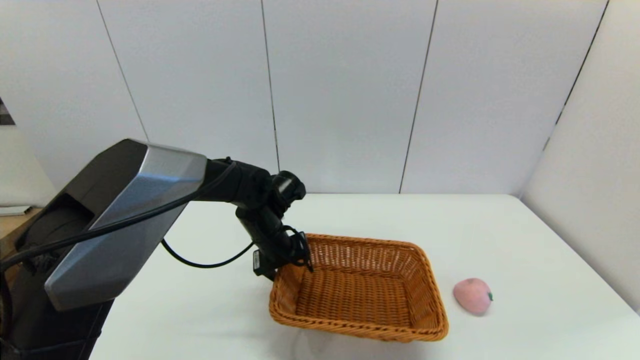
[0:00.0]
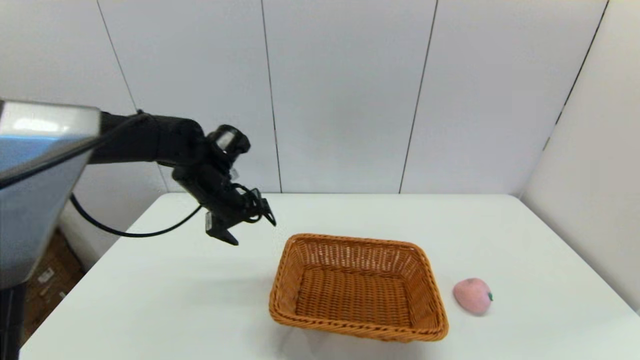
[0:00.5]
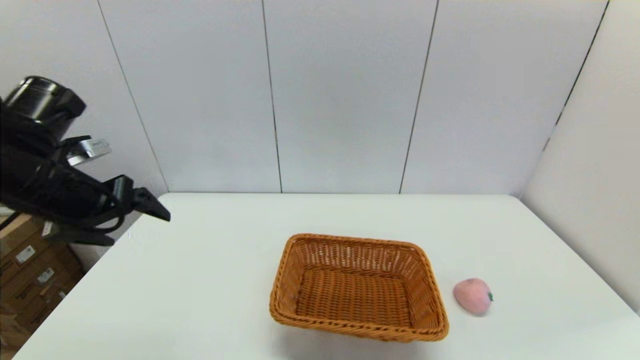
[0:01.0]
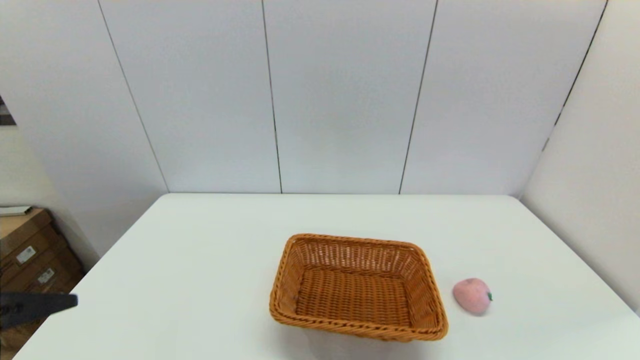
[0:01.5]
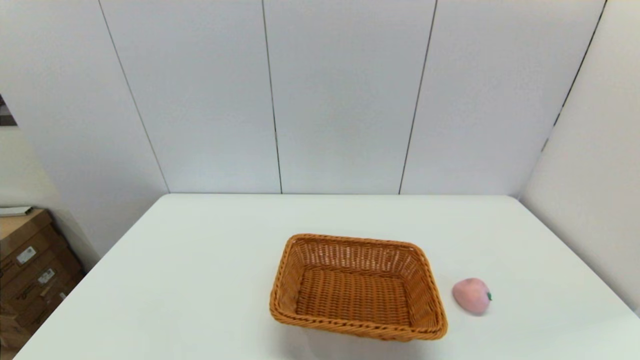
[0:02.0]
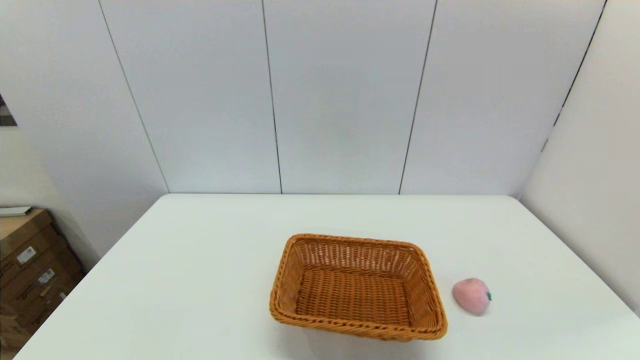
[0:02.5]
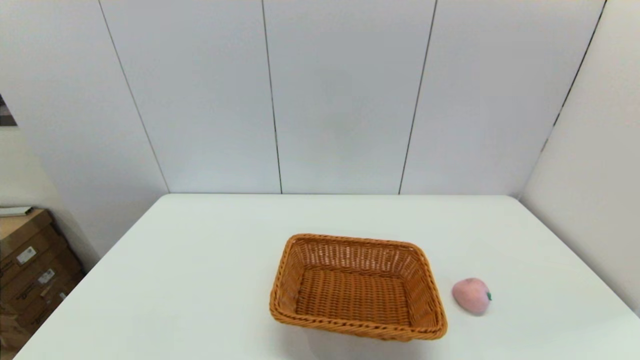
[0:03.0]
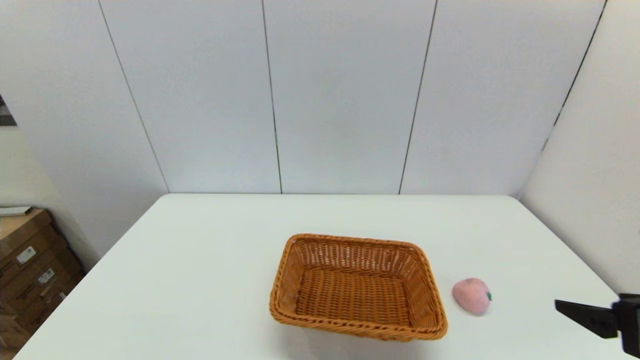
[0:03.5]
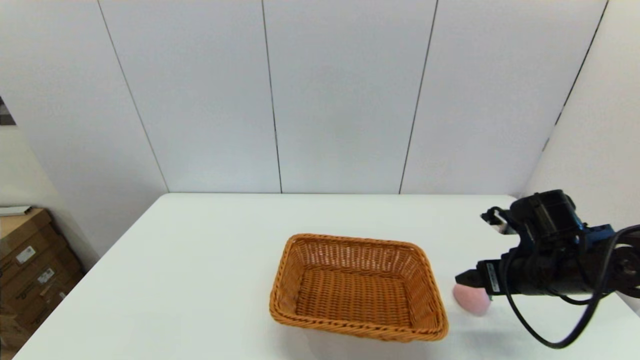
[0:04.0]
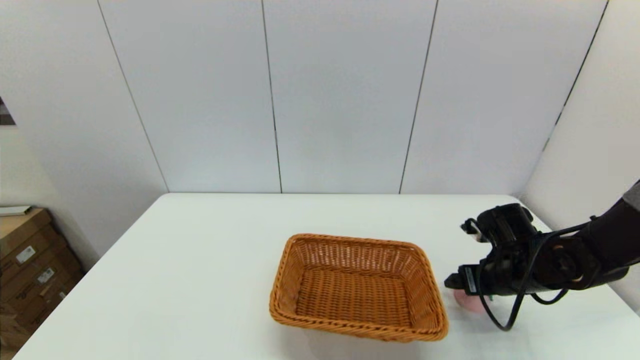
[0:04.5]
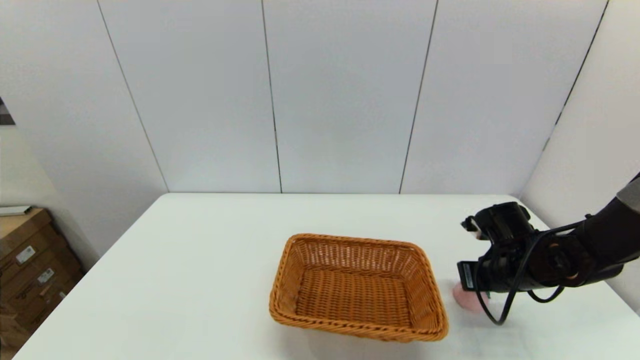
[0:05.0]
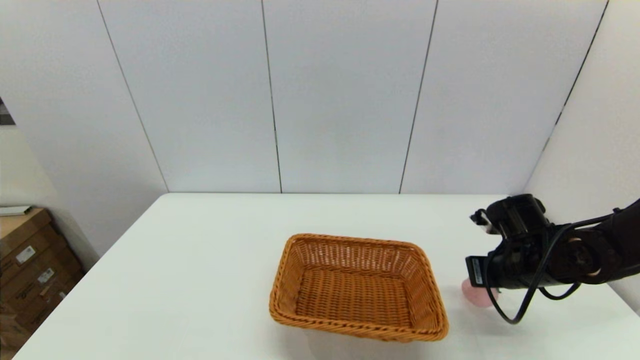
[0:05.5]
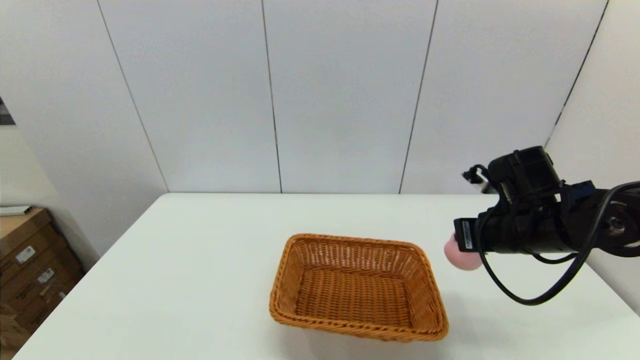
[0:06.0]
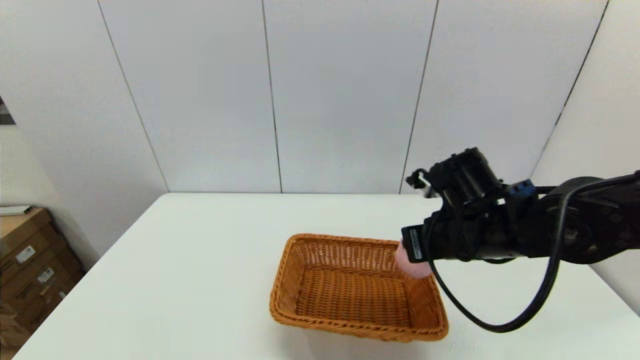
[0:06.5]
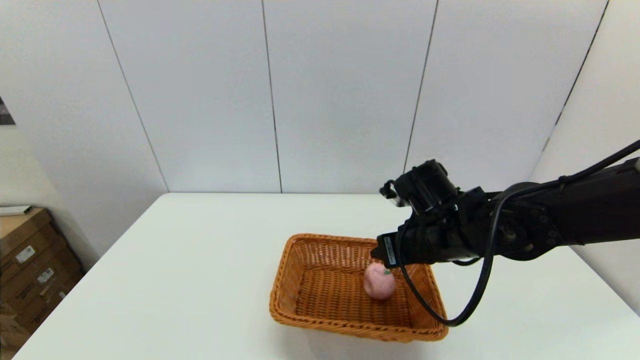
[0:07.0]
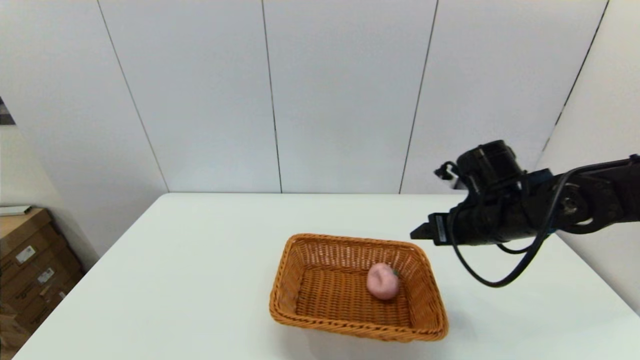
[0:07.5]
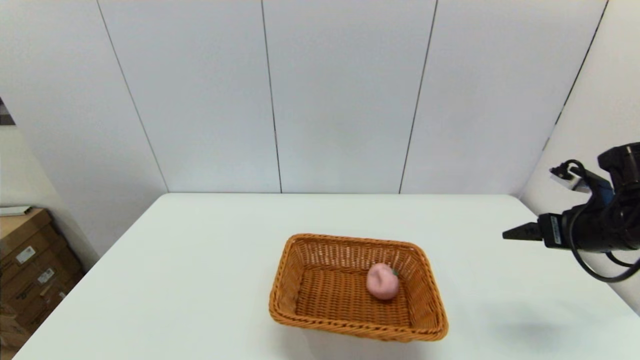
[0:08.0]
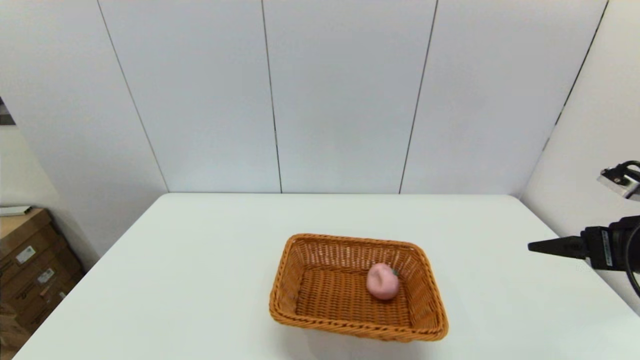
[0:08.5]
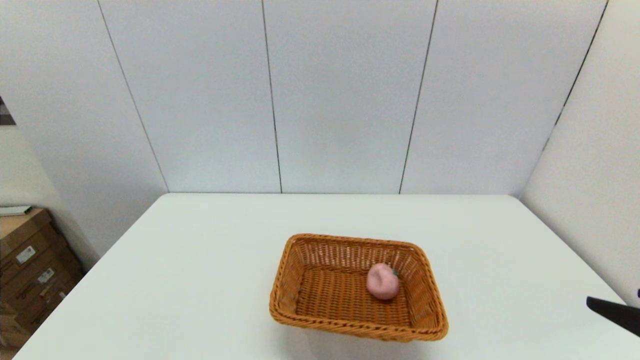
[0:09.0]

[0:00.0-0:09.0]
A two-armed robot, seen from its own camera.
Step, 0:00.5 to 0:05.0: Grasp the peach with the right gripper.
Step, 0:05.5 to 0:07.0: Place the peach into the light basket with the right gripper.
0:00.0 to 0:02.0: The left gripper shifts some 40 cm backward and to the left, and opens its fingers.
0:02.0 to 0:04.5: The right gripper goes about 35 cm forward.
0:04.5 to 0:07.0: The right gripper is displaced to the left and upward by about 15 cm, and closes its fingers.
0:07.0 to 0:09.0: The right gripper goes about 30 cm backward and to the right, and opens its fingers.
